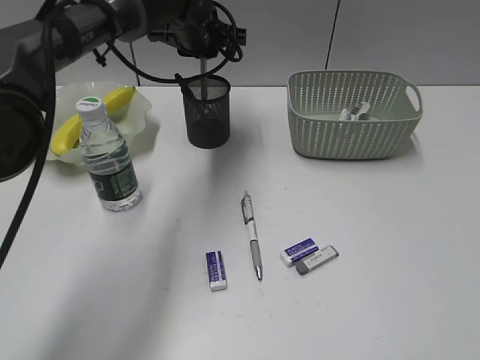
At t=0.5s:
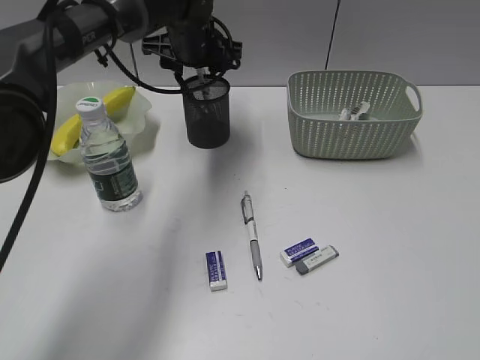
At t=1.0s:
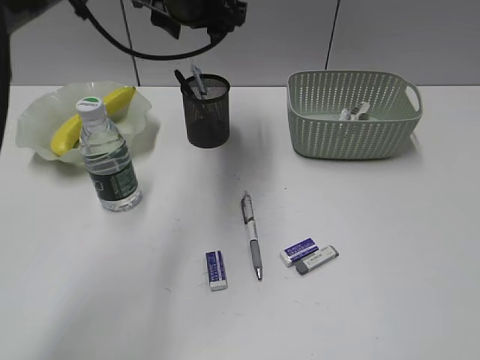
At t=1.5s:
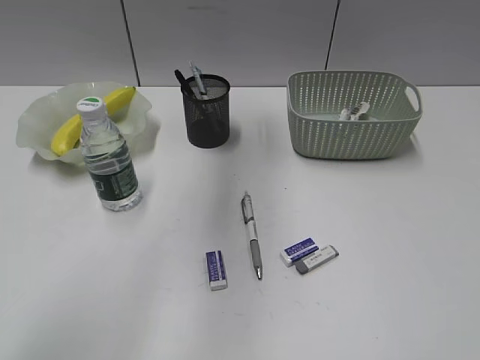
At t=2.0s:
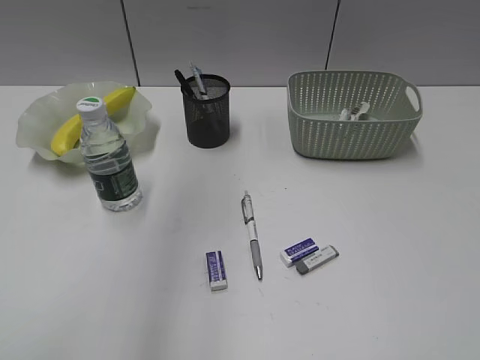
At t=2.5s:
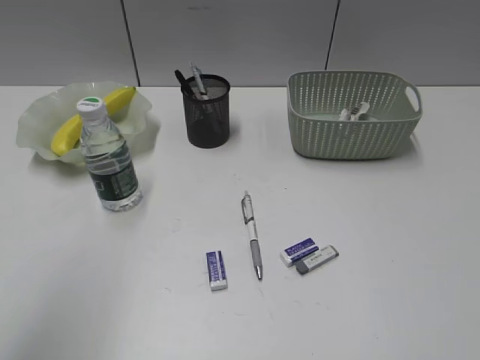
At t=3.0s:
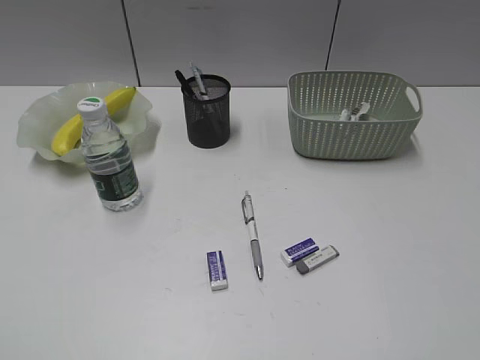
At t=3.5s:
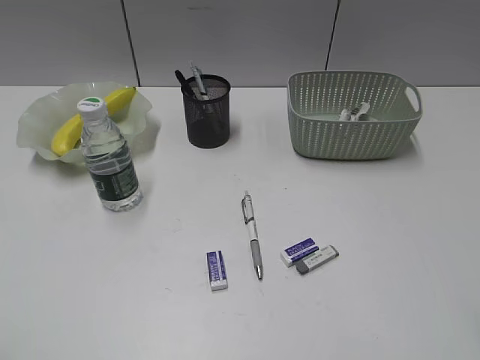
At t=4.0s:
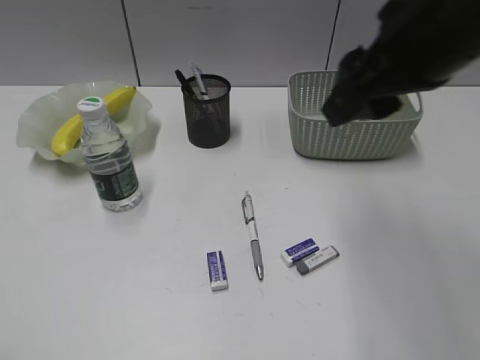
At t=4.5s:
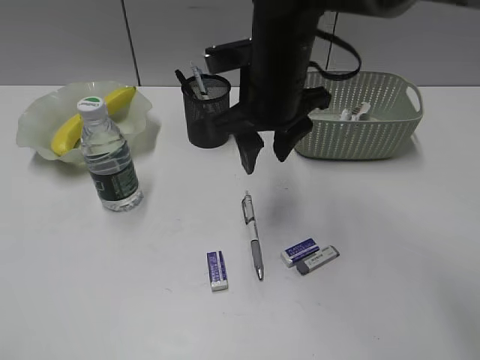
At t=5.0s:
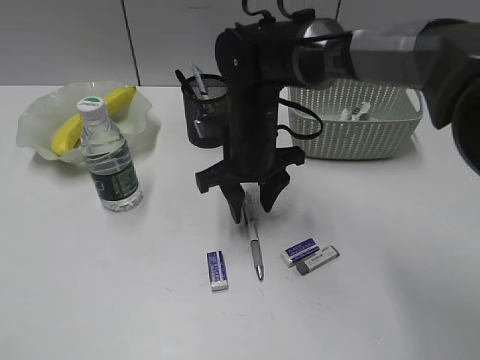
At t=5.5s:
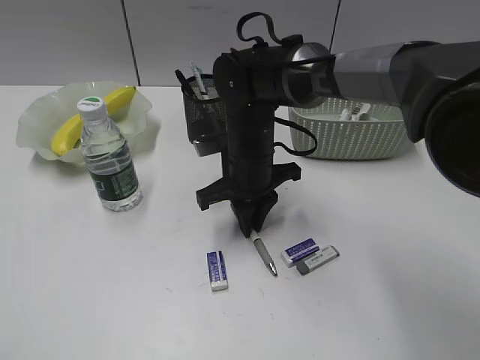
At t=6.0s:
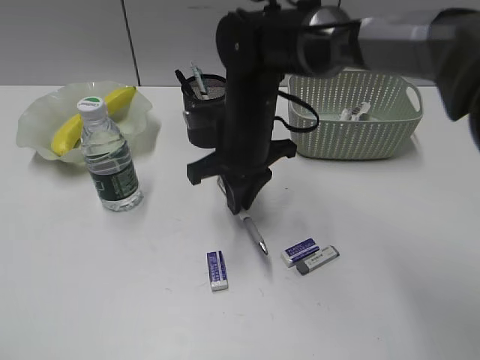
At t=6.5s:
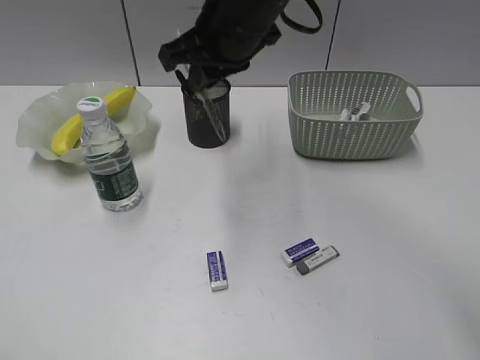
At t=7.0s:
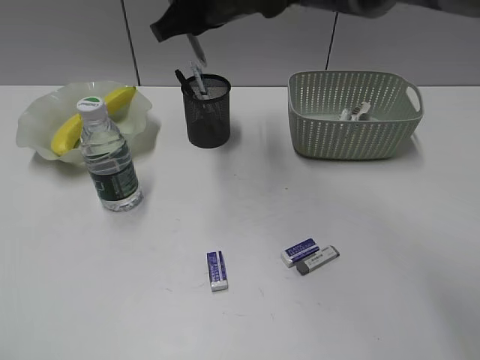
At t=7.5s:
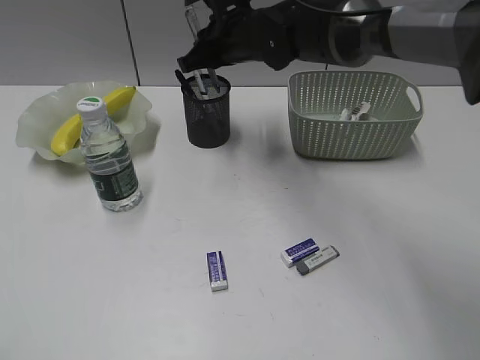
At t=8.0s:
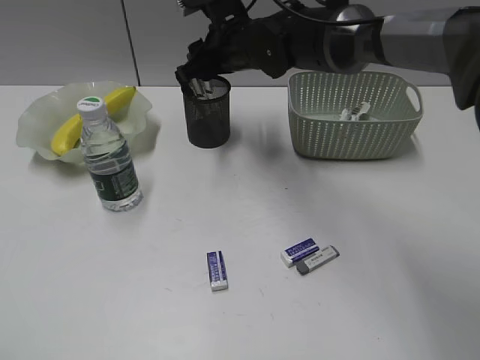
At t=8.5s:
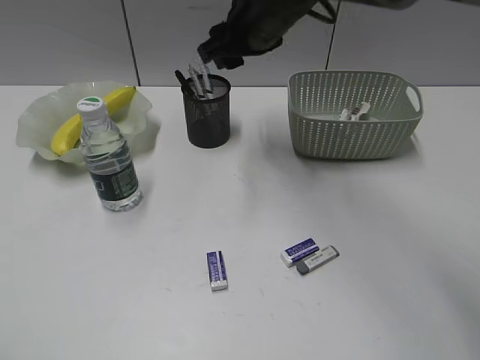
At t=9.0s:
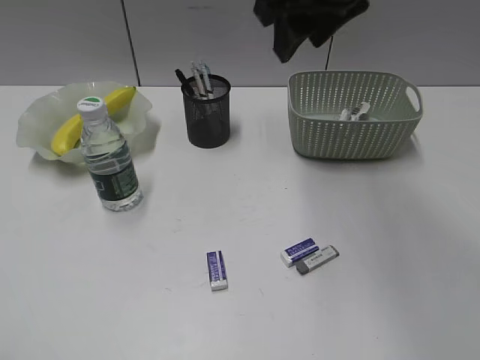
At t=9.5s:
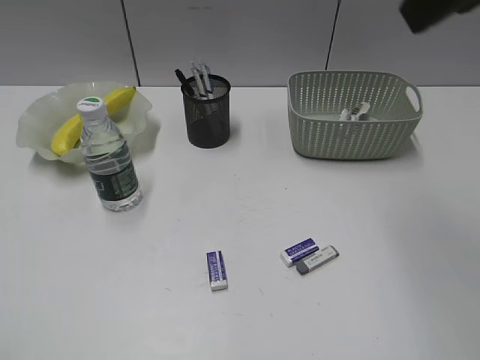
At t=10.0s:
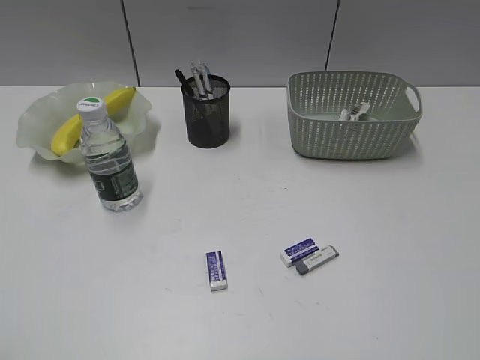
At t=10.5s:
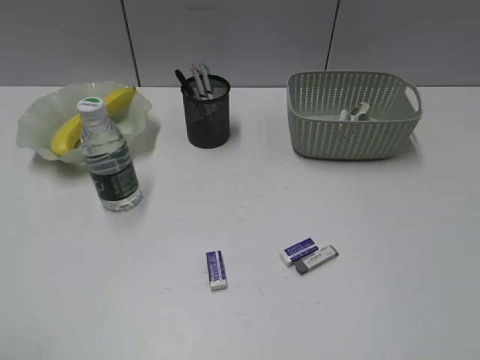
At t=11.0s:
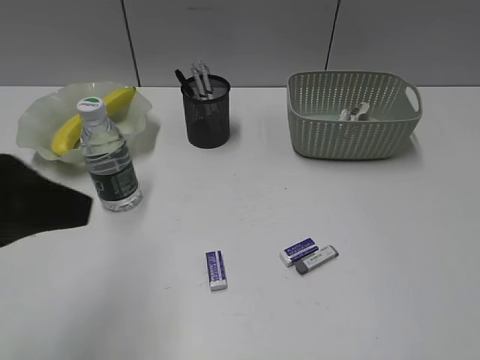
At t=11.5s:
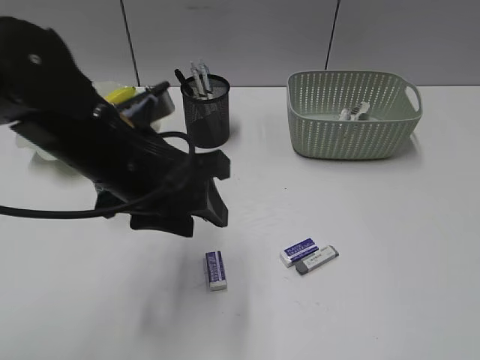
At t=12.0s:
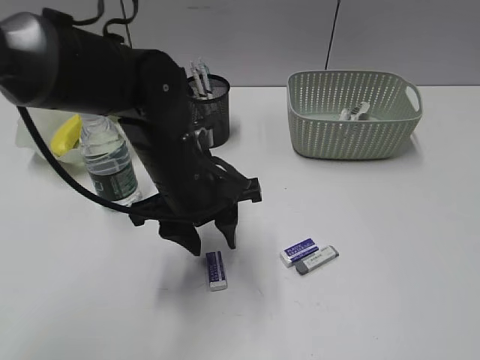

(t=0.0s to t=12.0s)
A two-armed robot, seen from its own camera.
Step, t=0.5s - t=5.5s: Grasp the gray pen with right gripper.
Step, t=6.0s - t=8.0s: Place the gray pen in pen holder with right gripper.
t=0.0s - t=2.0s: The left gripper is displaced upward and backward by some 35 cm, and opens up.
t=2.0s - t=4.0s: The left gripper moves backward, downward and to the left, approximately 40 cm. The right gripper is displaced forward and to the left by some 30 cm.
t=4.0s - t=6.0s: The right gripper travels downward, to the left and forward by about 25 cm, and closes up.
t=6.0s - t=8.0s: The right gripper shifts about 10 cm forward and upward, and opens up.
t=8.0s - t=10.0s: The right gripper shifts approximately 50 cm backward, to the right and upward.
t=10.0s - t=12.0s: The right gripper is displaced backward, downward and to the right by roughly 10 cm. The left gripper moves forward, to the right and downward, some 40 cm.

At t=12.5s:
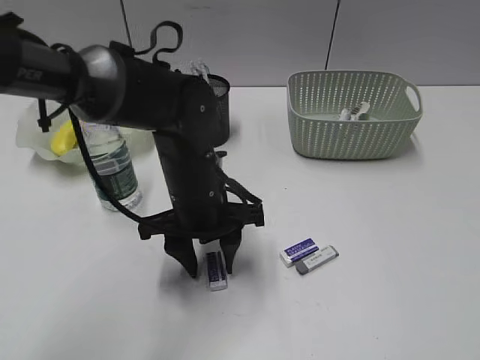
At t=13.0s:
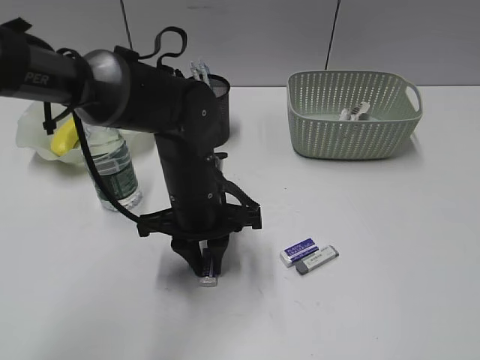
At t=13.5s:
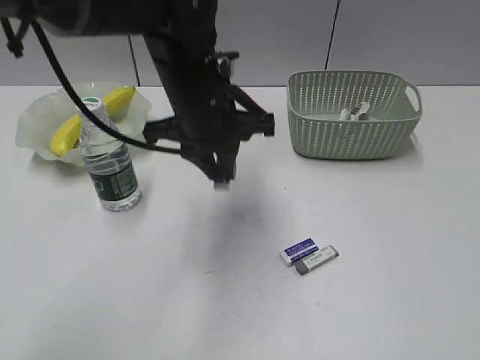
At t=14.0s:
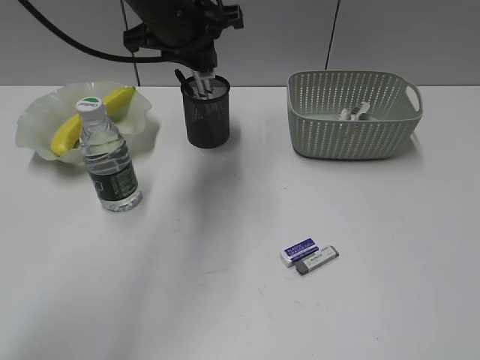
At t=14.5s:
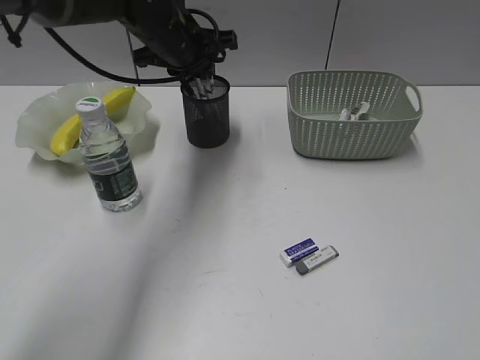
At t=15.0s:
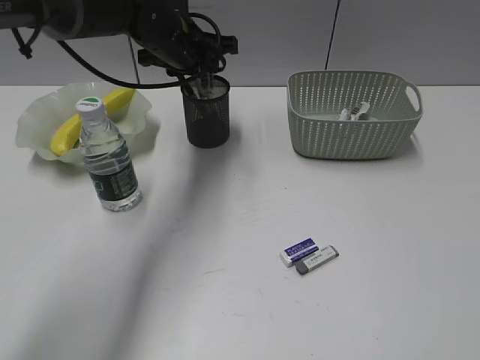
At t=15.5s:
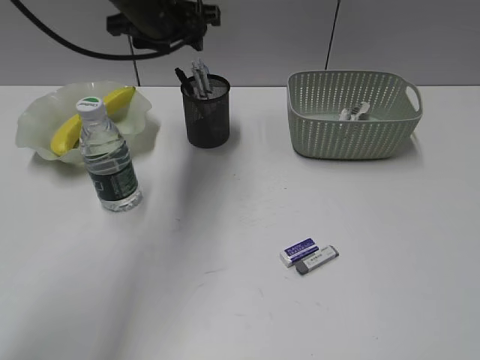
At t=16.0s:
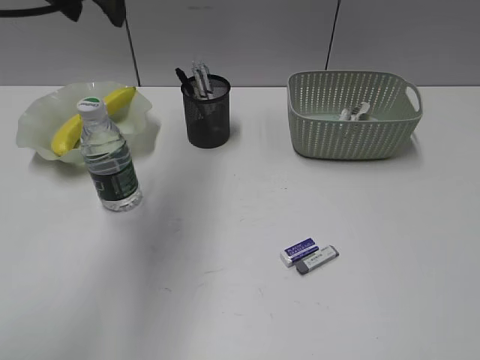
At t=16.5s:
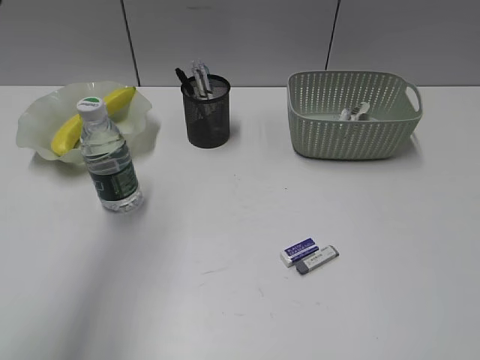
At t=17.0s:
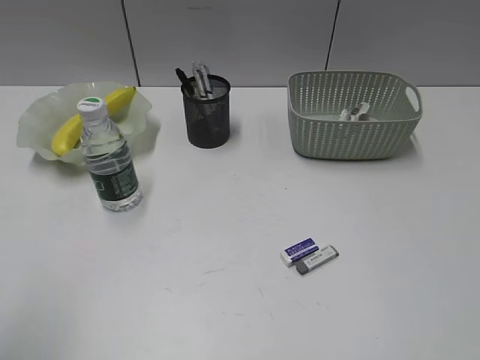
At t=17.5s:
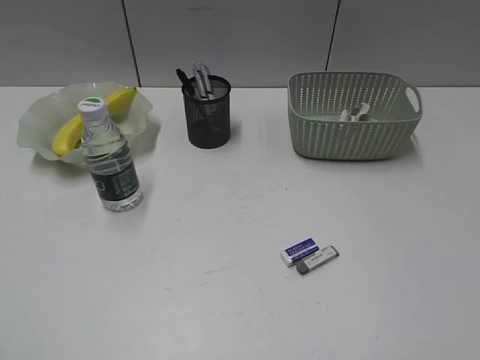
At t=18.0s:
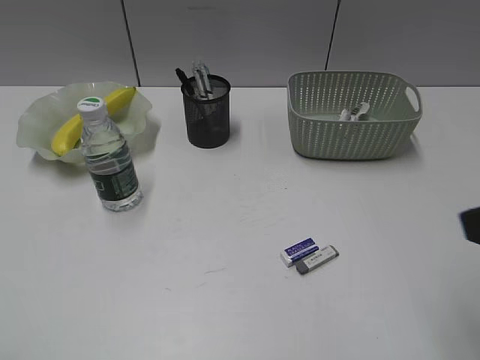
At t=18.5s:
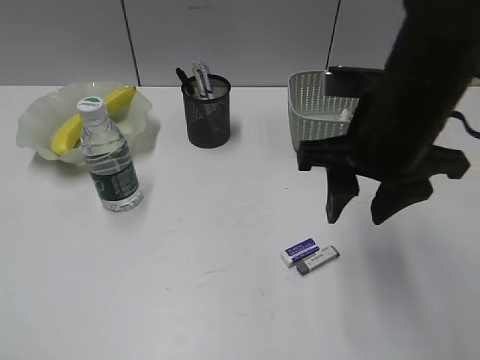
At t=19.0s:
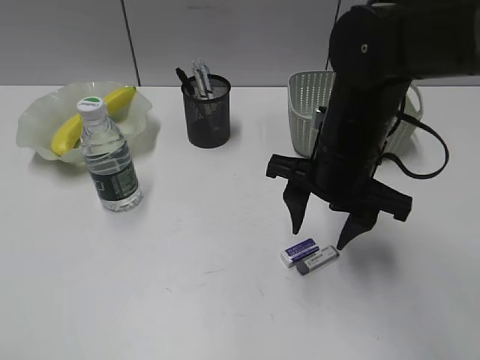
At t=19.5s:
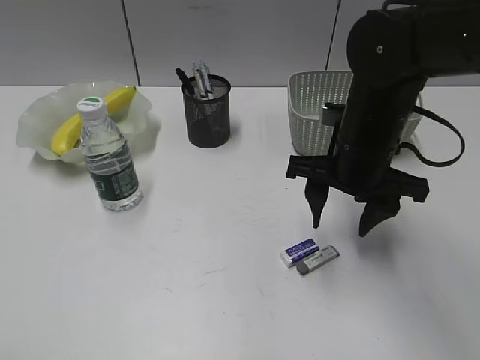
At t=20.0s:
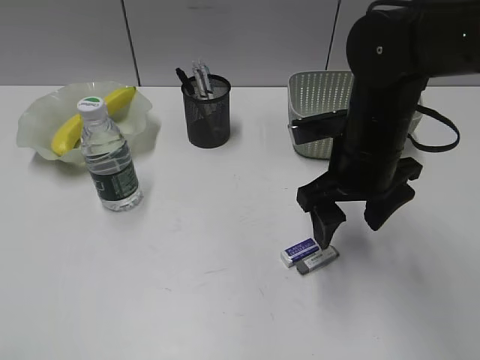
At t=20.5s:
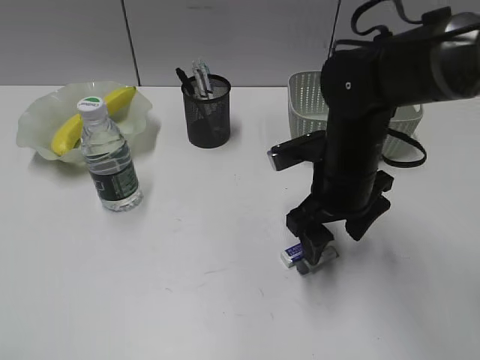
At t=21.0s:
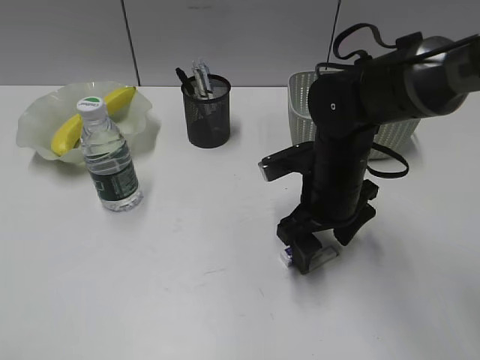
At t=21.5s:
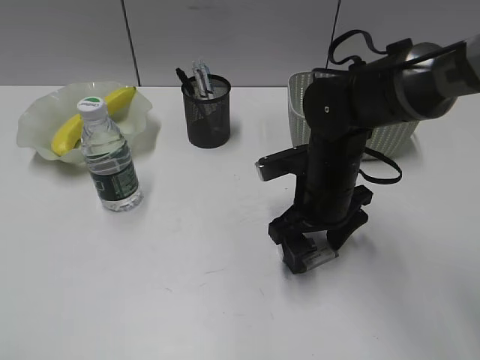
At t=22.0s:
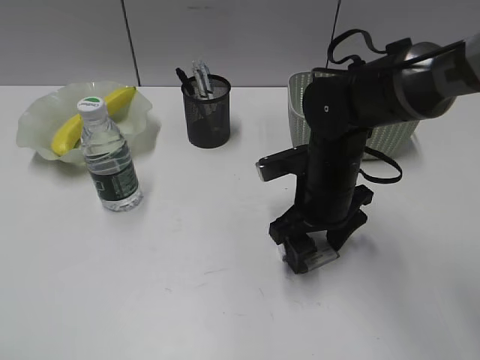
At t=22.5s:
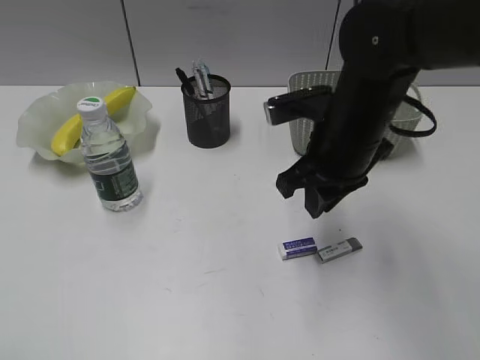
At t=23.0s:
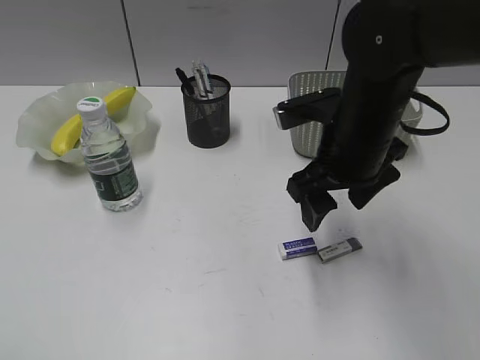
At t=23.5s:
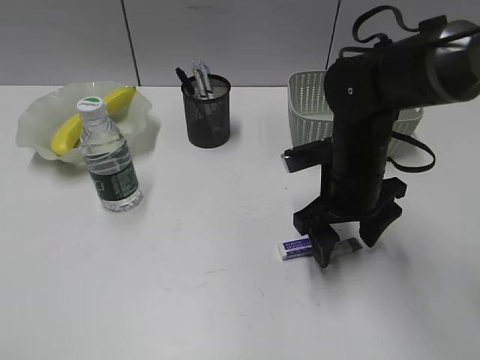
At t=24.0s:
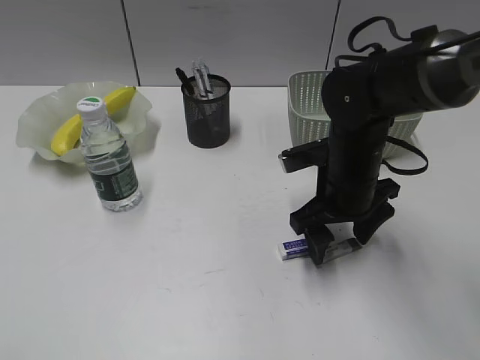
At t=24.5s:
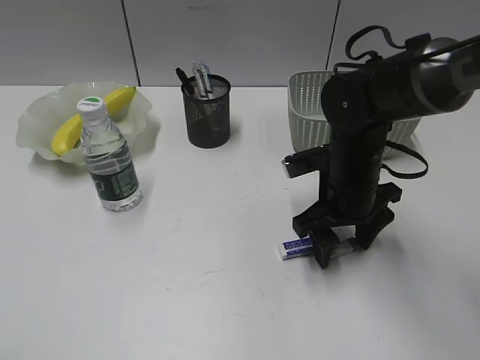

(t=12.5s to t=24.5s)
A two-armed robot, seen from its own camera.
Step, t=13.5s - t=15.0s: Place the eraser in pen holder with left gripper.
t=12.5s - t=14.5s: The left gripper travels forward and upward by some 20 cm, and closes up.
t=14.5s - t=16.5s: The left gripper travels backward, upward and to the left by approximately 30 cm.
t=16.5s - t=18.5s: The left gripper goes roughly 30 cm backward, downward and to the left. The right gripper heads forward and to the left, covering roughly 30 cm.
t=18.5s - t=20.5s: The right gripper travels downward by some 10 cm, and opens its fingers.
t=20.5s - t=22.5s: The right gripper closes.
t=22.5s - t=24.5s: The right gripper shifts about 10 cm downward, and opens its fingers.

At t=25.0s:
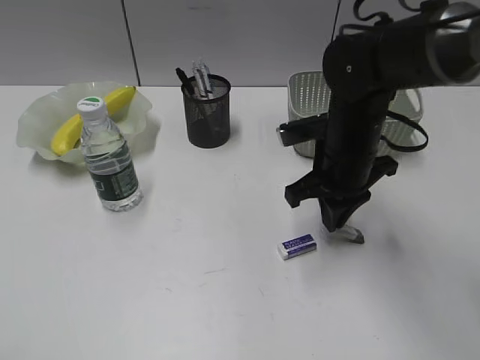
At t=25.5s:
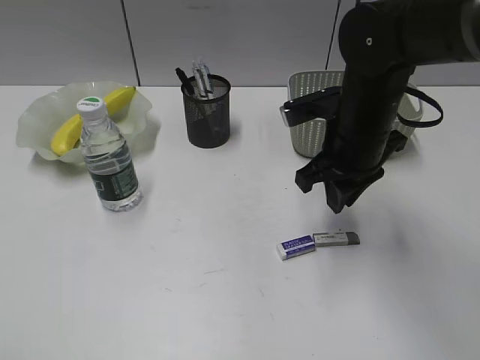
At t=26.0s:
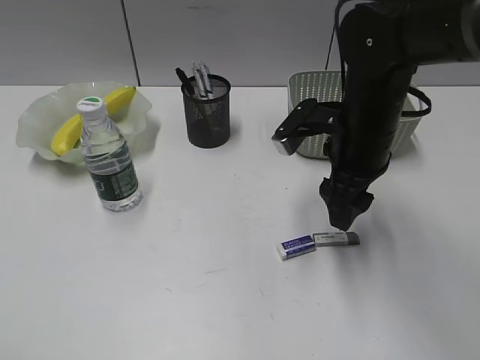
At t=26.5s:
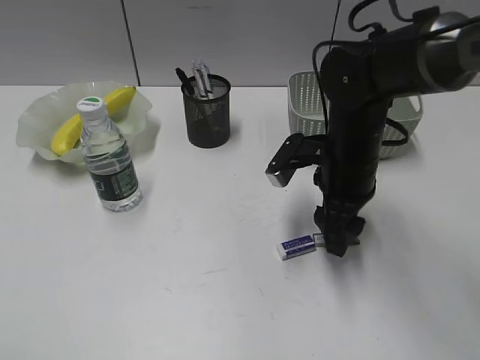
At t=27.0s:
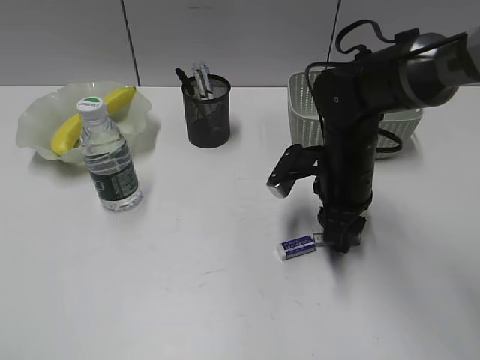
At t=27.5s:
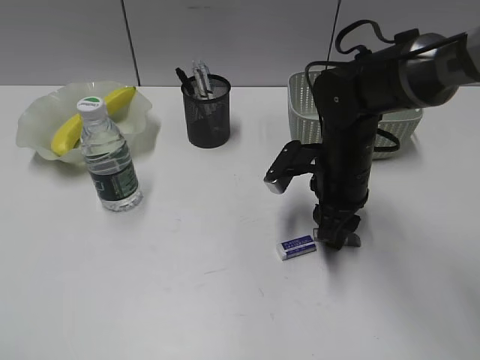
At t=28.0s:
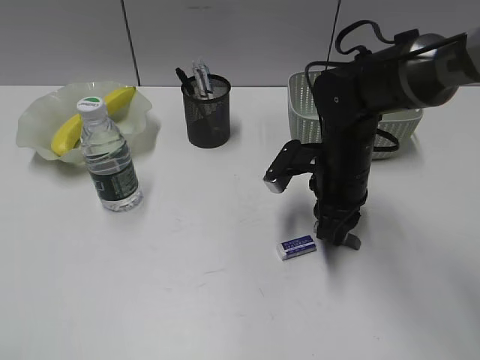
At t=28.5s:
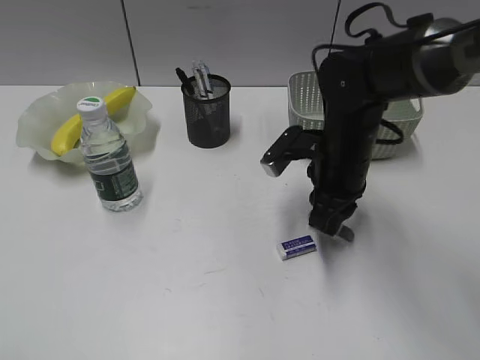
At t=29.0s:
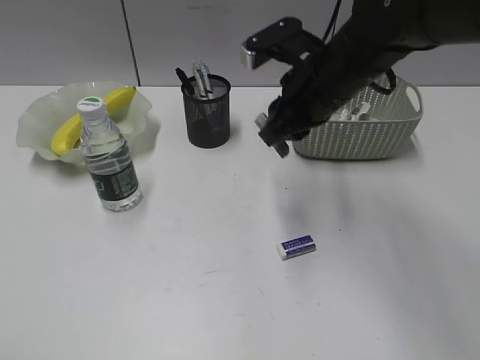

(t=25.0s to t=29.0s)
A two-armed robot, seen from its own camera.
Step, t=25.0s - t=28.0s: Grasp the eraser with right gripper.
t=25.0s - t=27.0s: The right gripper opens up.
t=27.0s - t=29.0s: The right gripper shifts about 10 cm upward, and closes up.
